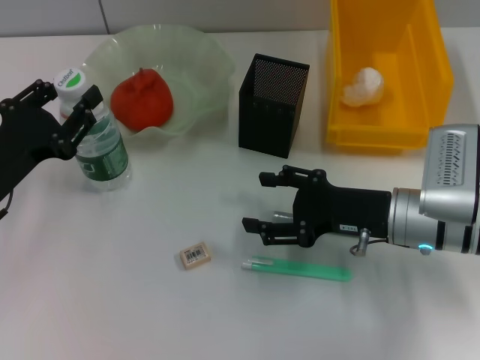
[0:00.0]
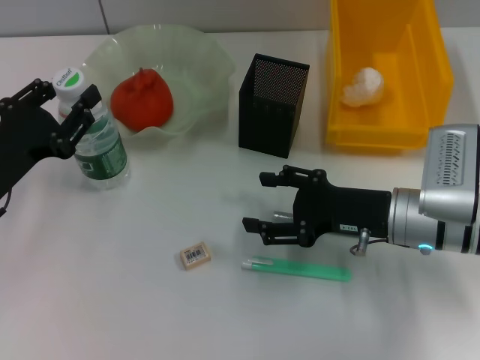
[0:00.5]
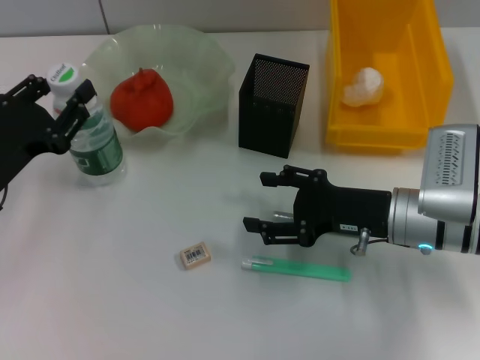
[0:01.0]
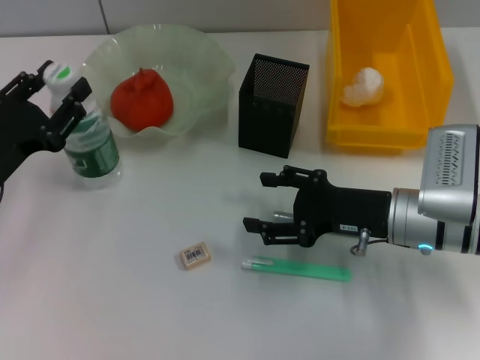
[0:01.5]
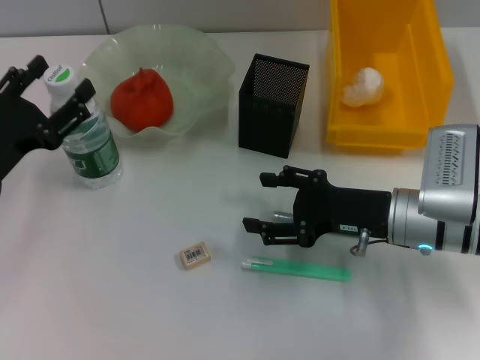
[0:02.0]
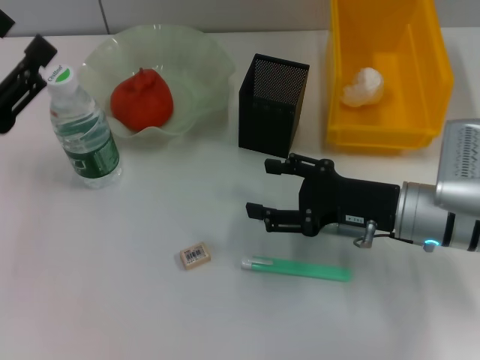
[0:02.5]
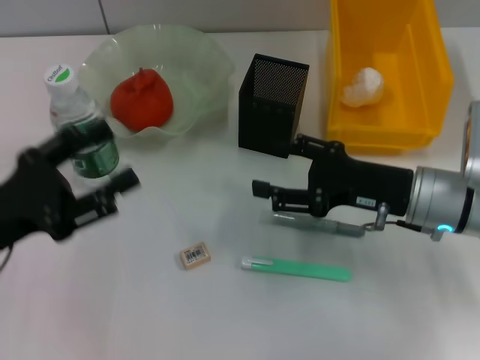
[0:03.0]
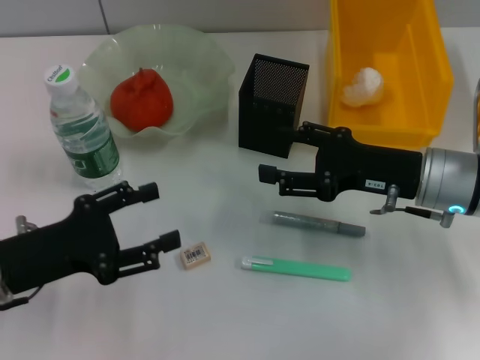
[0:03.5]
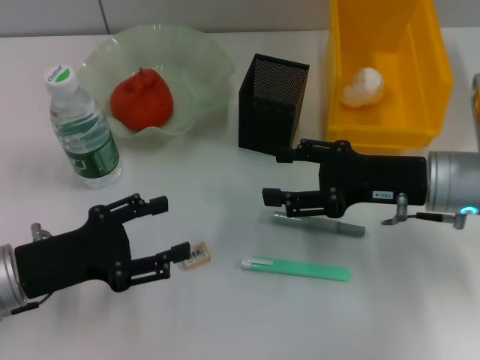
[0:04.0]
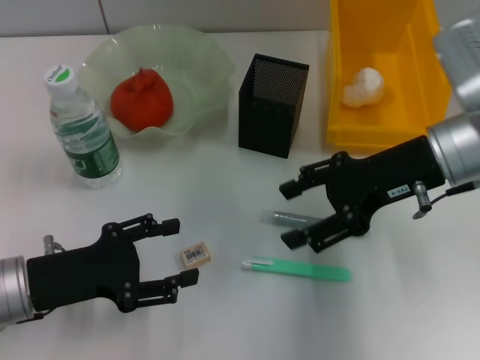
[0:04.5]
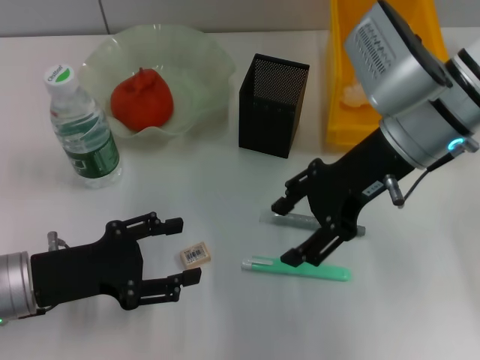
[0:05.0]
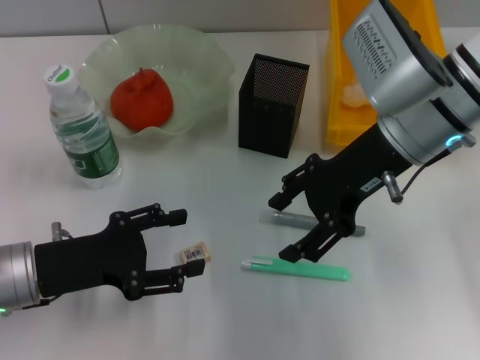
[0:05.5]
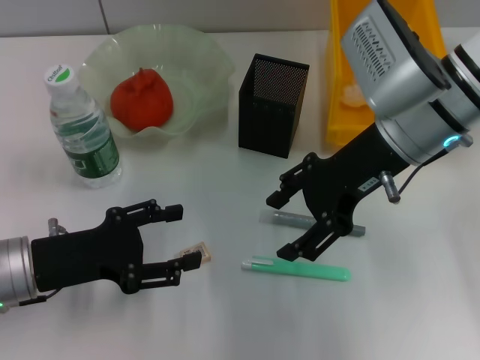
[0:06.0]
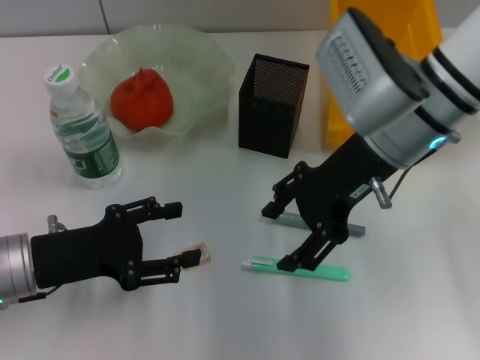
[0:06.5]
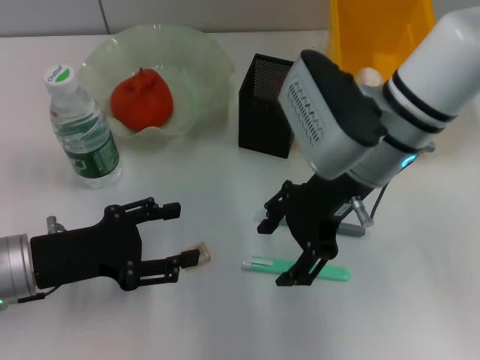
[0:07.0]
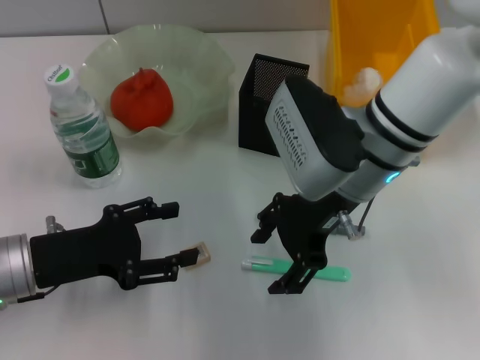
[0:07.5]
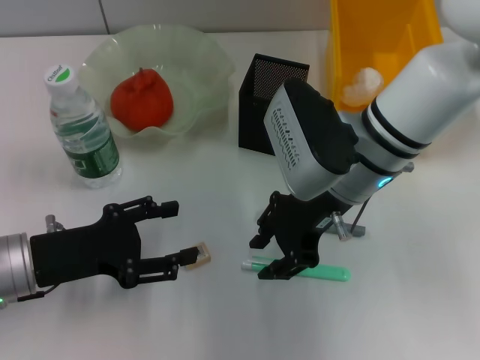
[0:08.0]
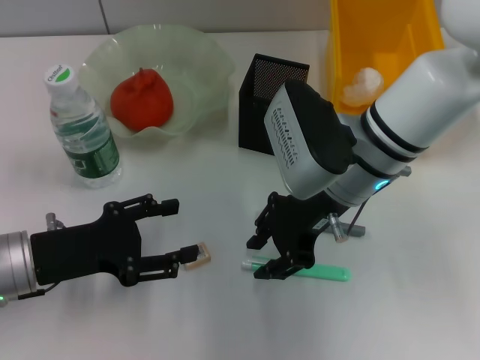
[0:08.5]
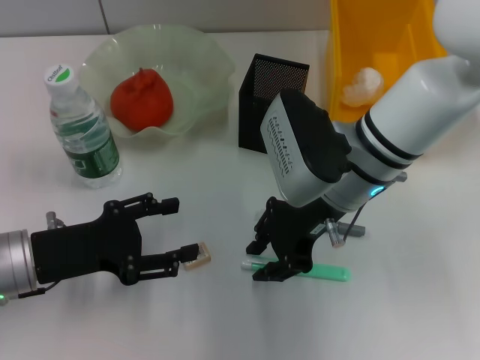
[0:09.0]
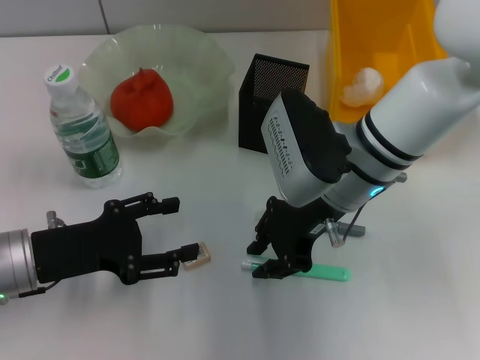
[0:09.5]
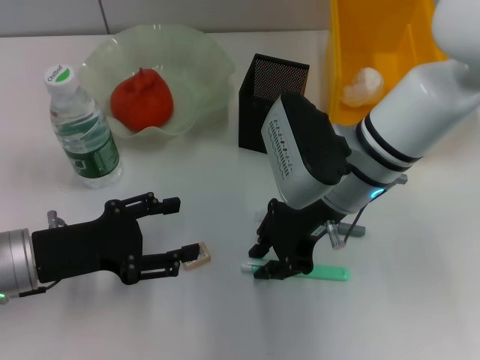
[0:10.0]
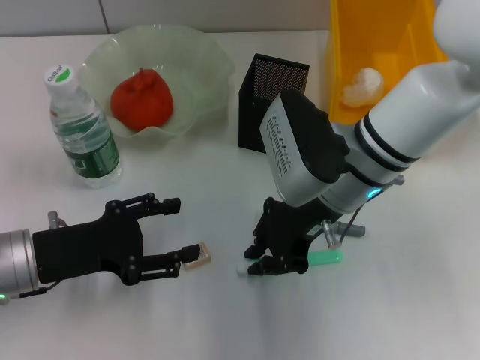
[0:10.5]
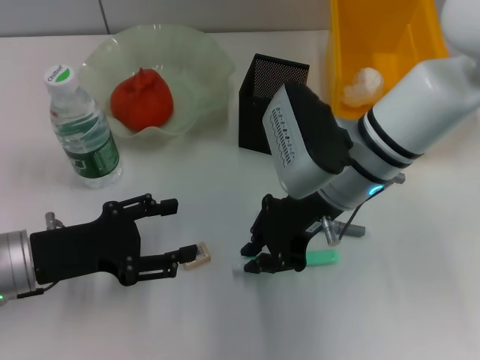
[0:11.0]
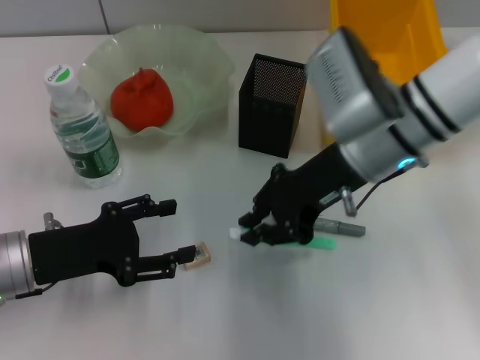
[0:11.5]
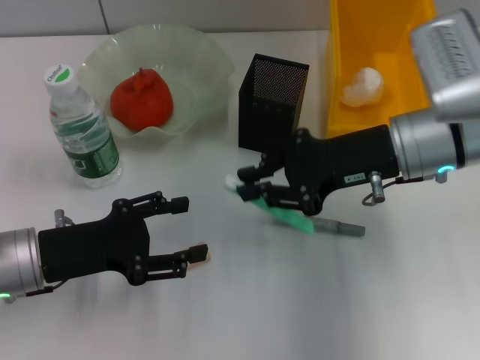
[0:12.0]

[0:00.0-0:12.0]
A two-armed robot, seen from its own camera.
Step, 0:02.0 to 0:10.5: Grab the blue utility knife with the right hand.
0:00.0 to 0:02.0: The left gripper opens.
0:02.0 to 0:04.0: The left gripper moves about 5 cm. The right gripper ends up some 5 cm from where it was.
0:04.0 to 0:06.0: The right gripper is displaced upward and to the left by roughly 10 cm.
0:06.0 to 0:08.0: The right gripper ends up about 5 cm from where it was.
0:08.0 to 0:10.0: The right gripper closes its fingers.
0:10.0 to 0:12.0: The right gripper moves to the right, some 10 cm.

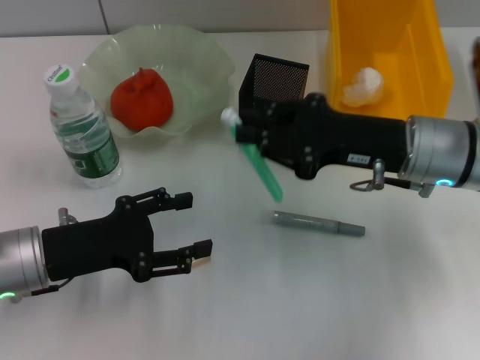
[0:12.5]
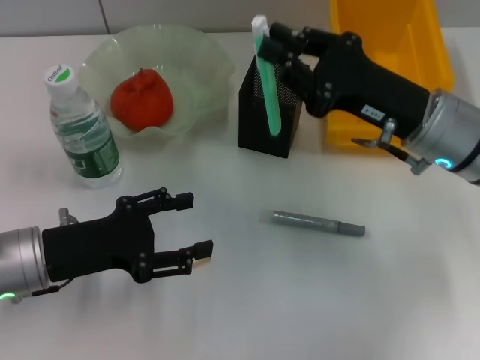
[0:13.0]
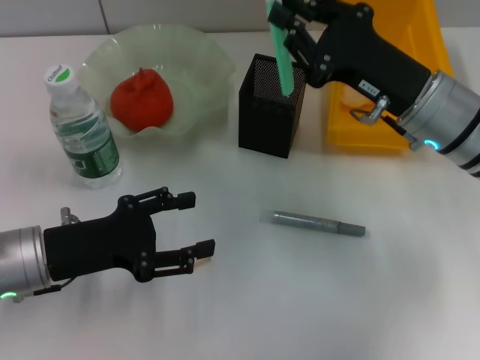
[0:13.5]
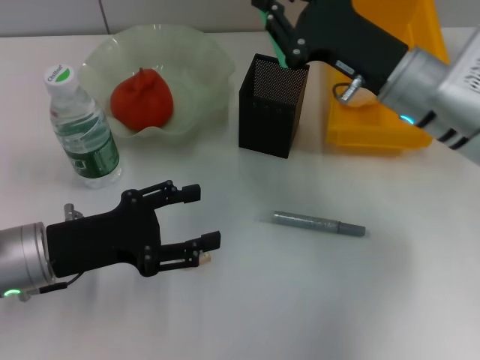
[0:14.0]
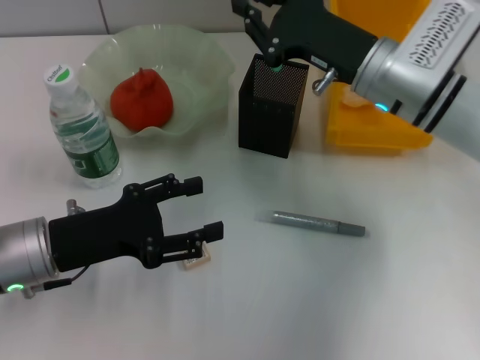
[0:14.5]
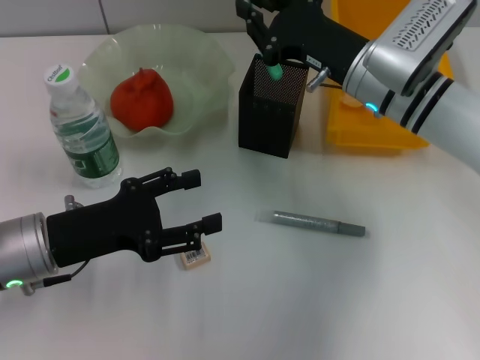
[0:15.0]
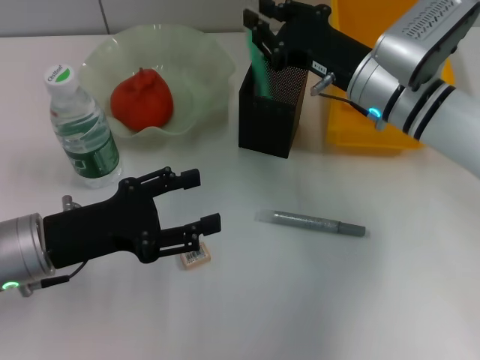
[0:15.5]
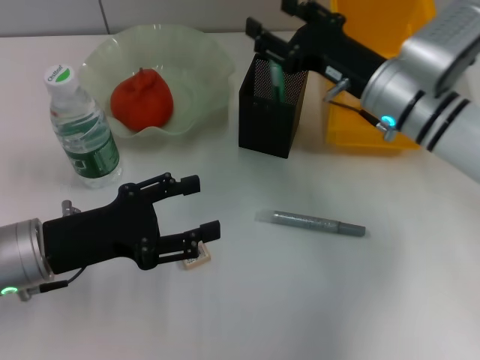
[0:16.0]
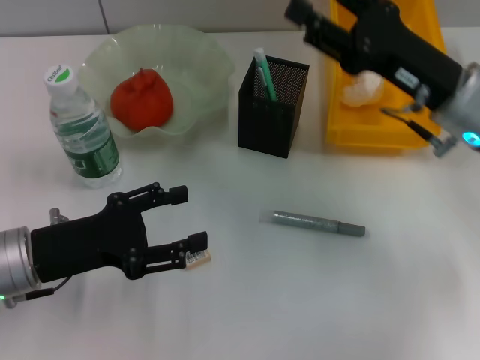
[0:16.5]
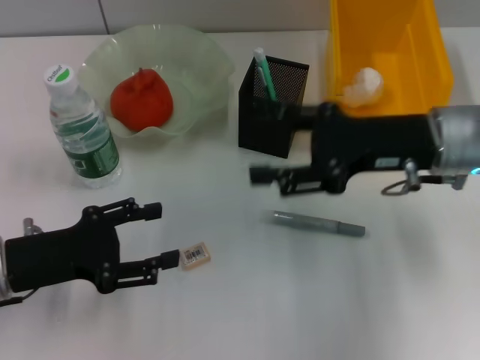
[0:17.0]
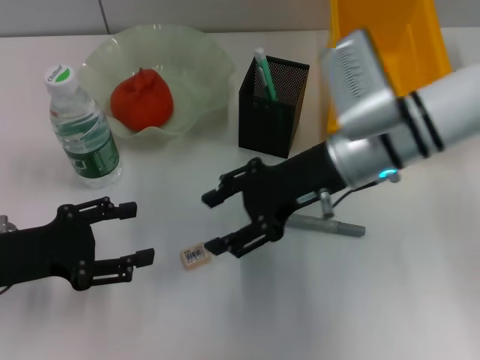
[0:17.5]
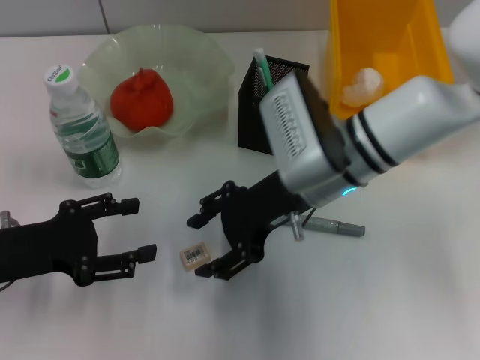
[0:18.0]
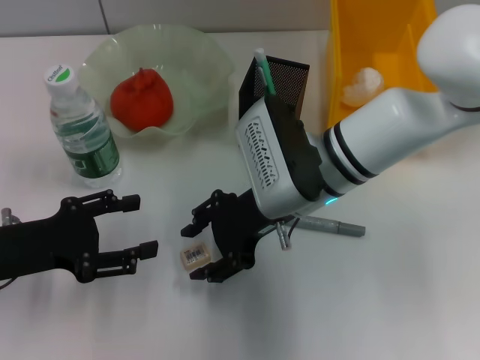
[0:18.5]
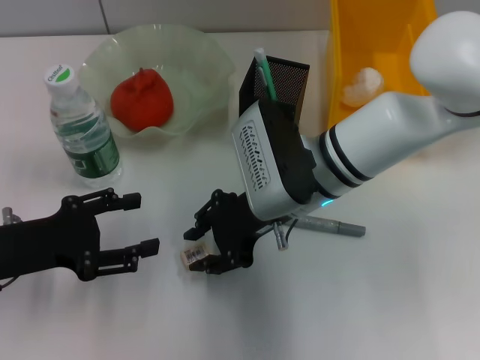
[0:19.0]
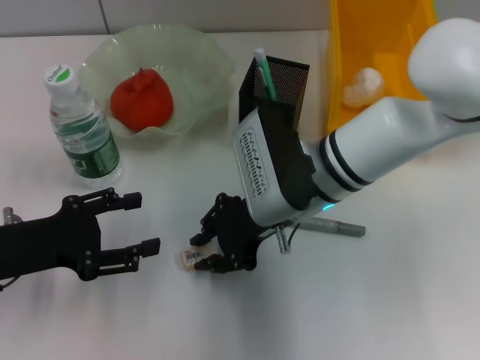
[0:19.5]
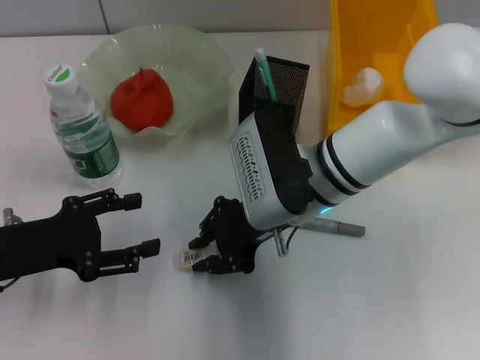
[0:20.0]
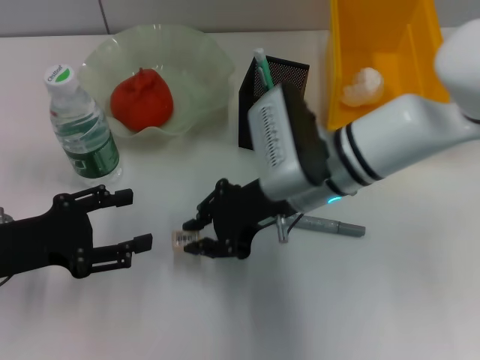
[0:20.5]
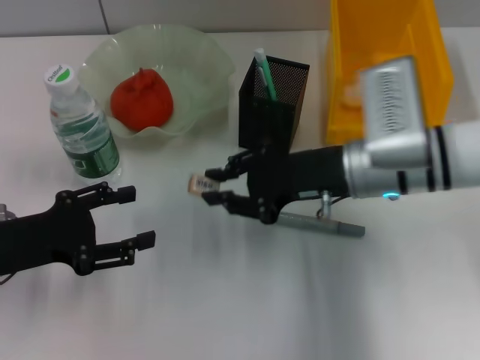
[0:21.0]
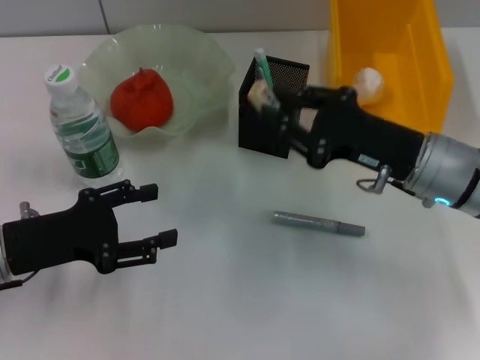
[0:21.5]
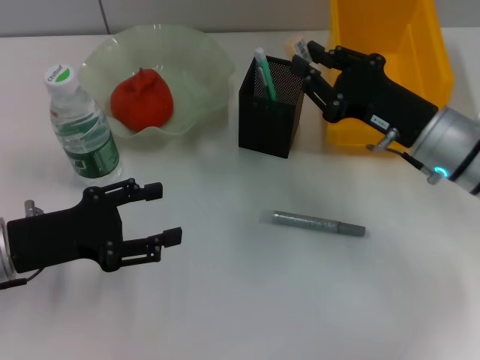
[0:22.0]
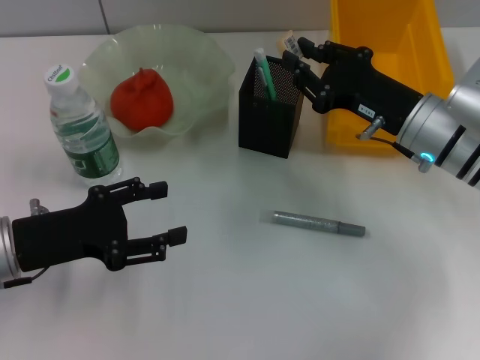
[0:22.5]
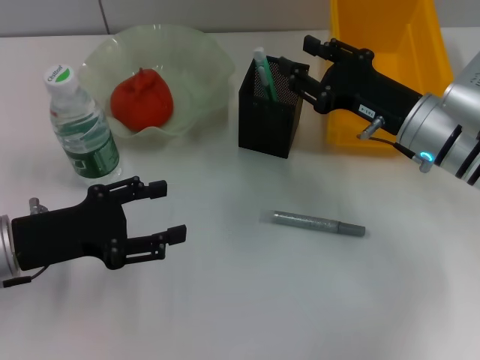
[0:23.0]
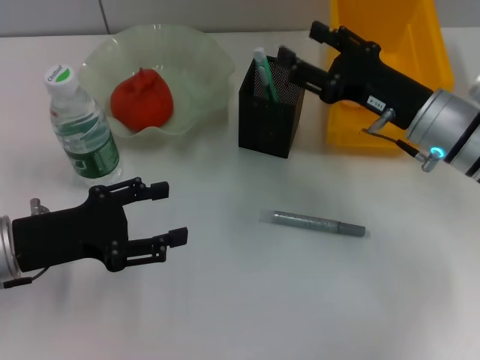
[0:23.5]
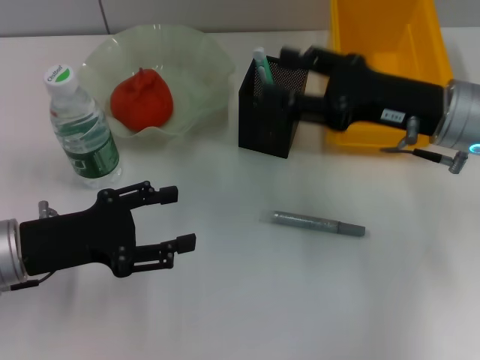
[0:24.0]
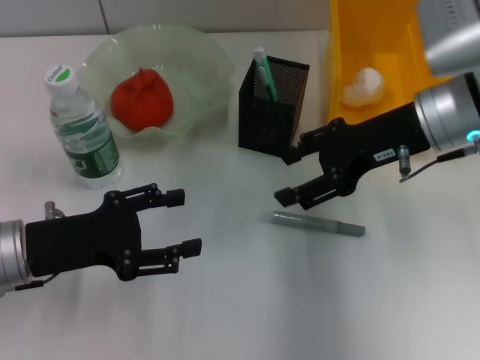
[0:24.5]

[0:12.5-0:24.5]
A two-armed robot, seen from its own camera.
Step, 0:12.5 to 0:16.0: Place the blue utility knife into the pen holder with the right hand.
Step, 0:16.5 to 0:20.0: Grab the eraser with the right hand.
Step, 0:20.5 to 0:23.0: Put the eraser into the pen holder with the right hand.
0:12.5 to 0:14.5: The right gripper moves forward, about 5 cm.
0:14.5 to 0:16.5: The right gripper travels to the right by some 5 cm, and opens up.
0:16.5 to 0:18.5: The right gripper goes some 15 cm to the left.
0:18.5 to 0:20.5: The right gripper closes its fingers.
0:20.5 to 0:22.5: The right gripper is displaced to the right by roughly 10 cm.
0:22.5 to 0:24.5: The right gripper moves upward, about 10 cm, and opens its fingers.

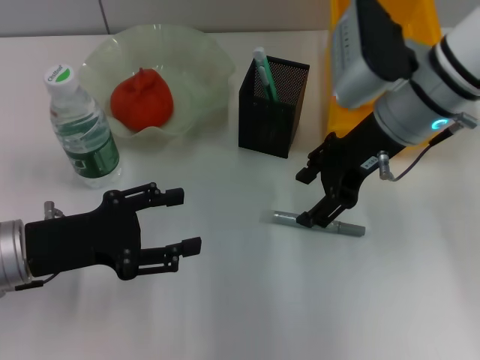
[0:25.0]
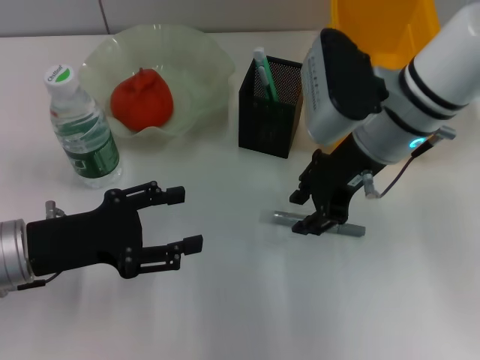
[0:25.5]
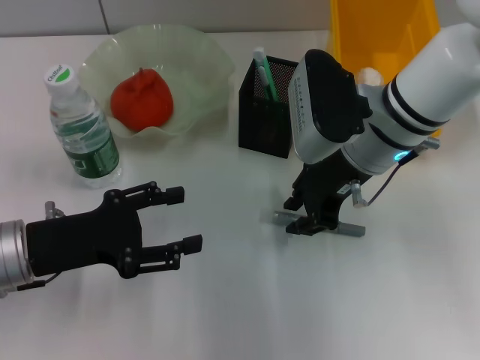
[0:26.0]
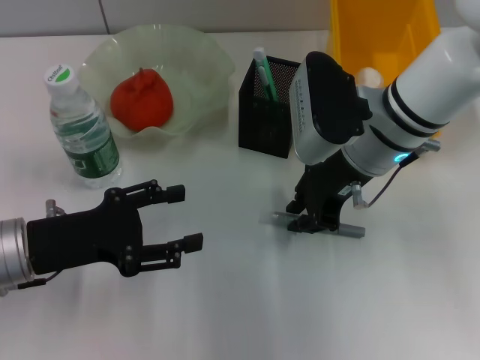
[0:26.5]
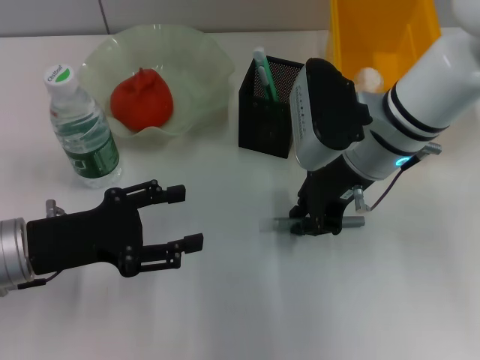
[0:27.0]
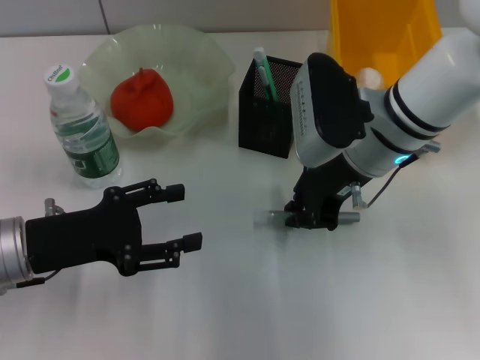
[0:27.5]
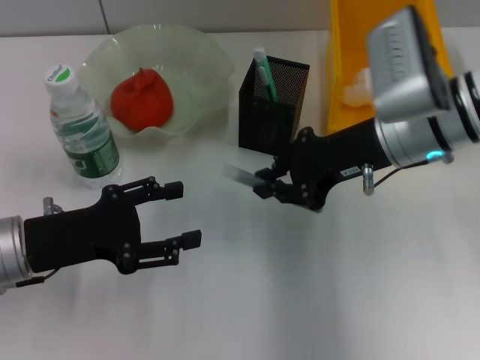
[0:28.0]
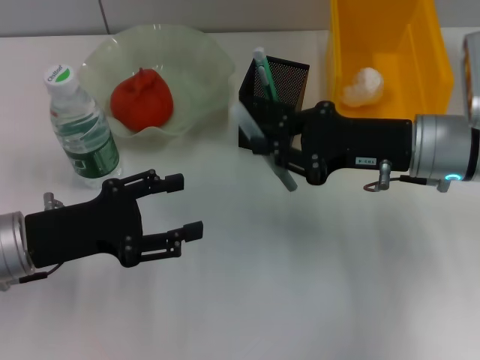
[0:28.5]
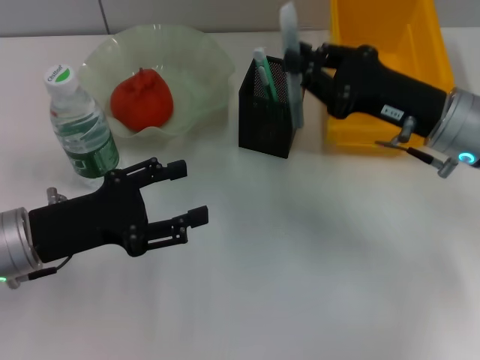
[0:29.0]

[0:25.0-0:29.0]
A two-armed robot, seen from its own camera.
Step, 0:25.0 to 0:27.0: Grab the gray glue with the right hand.
0:25.0 to 0:27.0: The right gripper closes up.
0:27.0 to 0:29.0: The right gripper shifts some 10 cm to the right.
